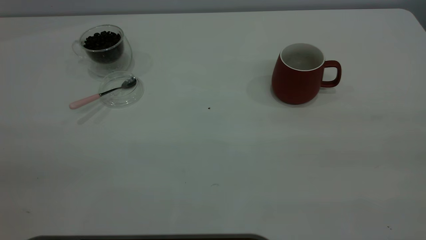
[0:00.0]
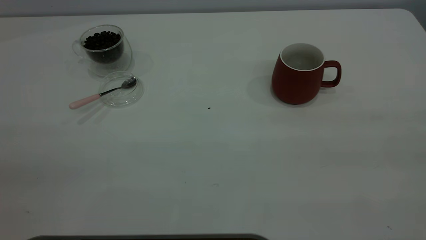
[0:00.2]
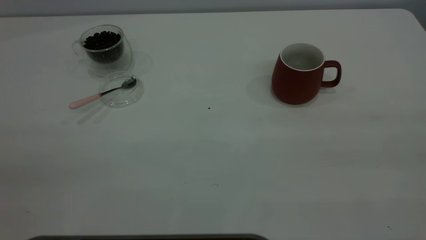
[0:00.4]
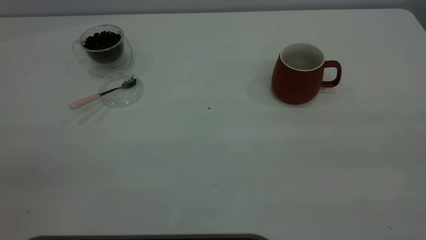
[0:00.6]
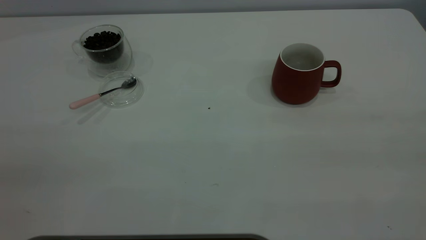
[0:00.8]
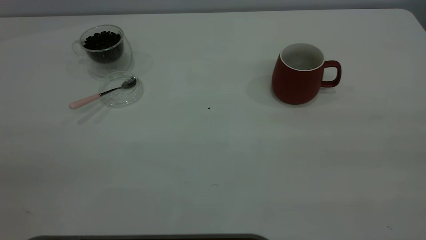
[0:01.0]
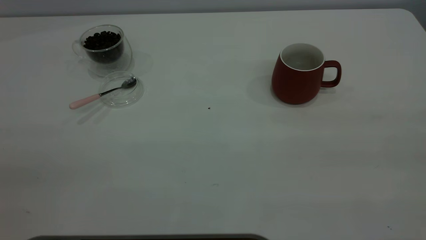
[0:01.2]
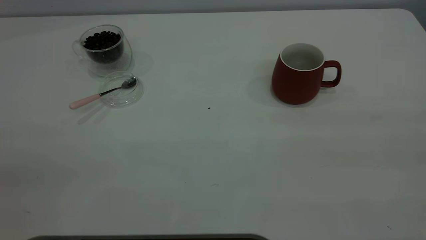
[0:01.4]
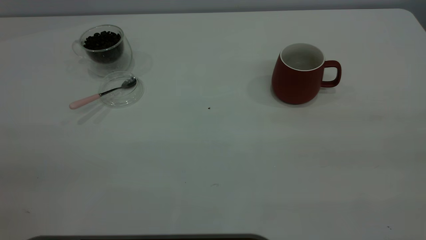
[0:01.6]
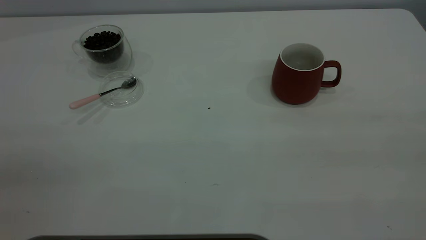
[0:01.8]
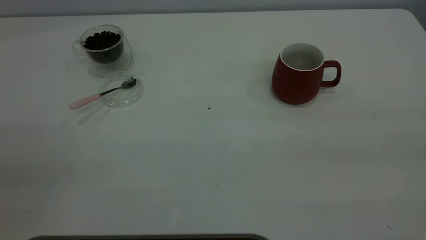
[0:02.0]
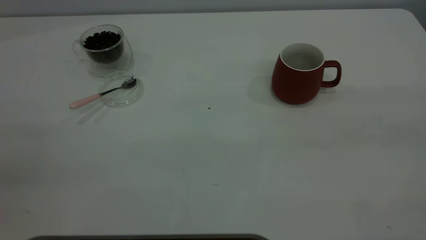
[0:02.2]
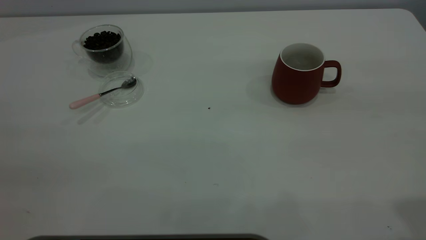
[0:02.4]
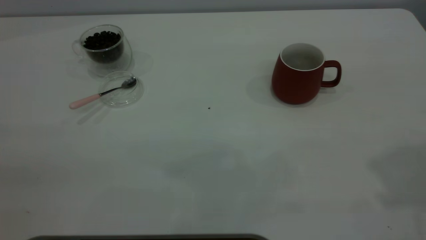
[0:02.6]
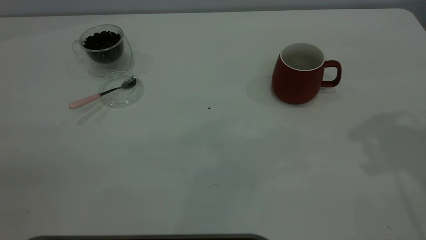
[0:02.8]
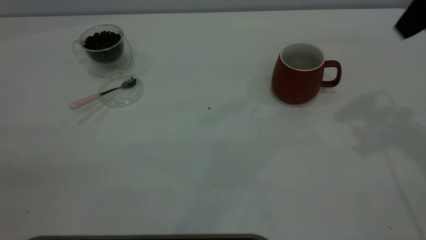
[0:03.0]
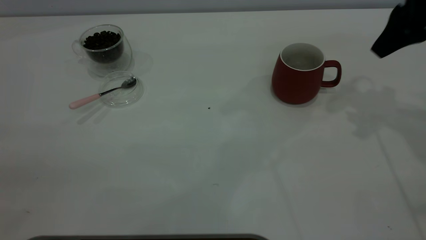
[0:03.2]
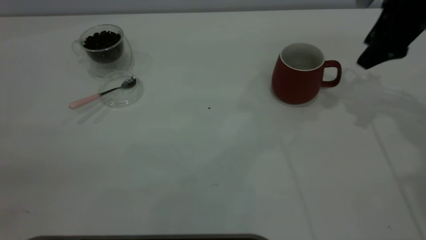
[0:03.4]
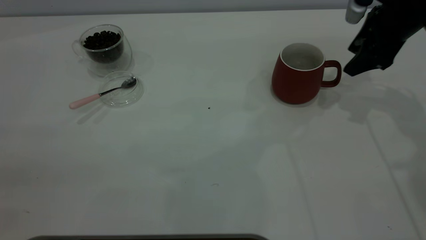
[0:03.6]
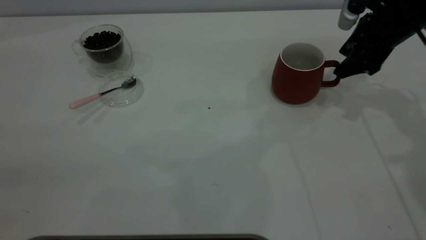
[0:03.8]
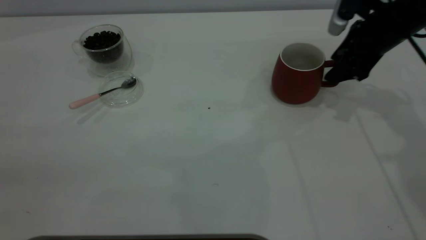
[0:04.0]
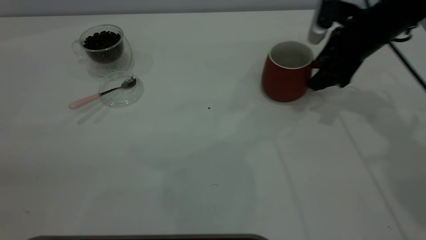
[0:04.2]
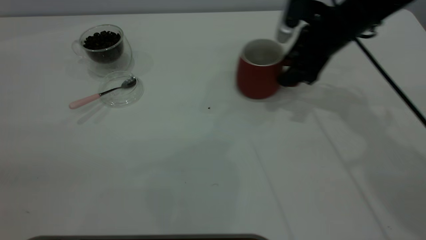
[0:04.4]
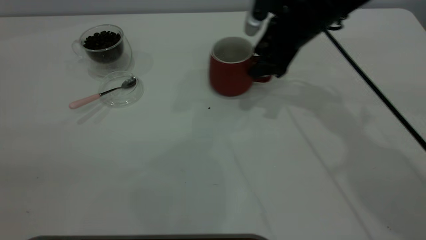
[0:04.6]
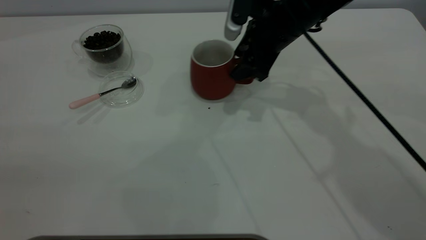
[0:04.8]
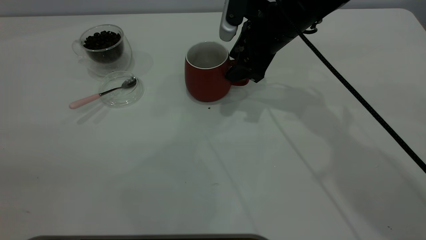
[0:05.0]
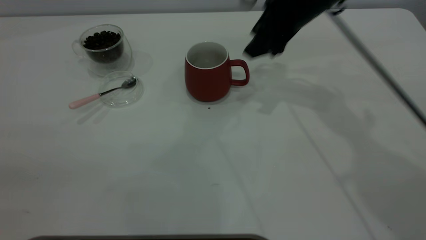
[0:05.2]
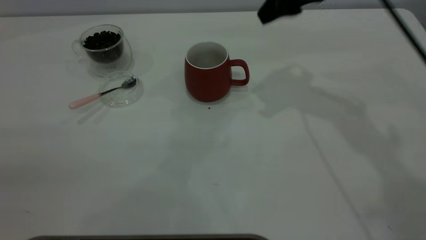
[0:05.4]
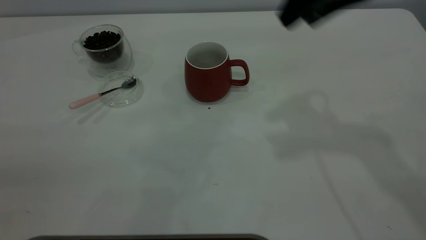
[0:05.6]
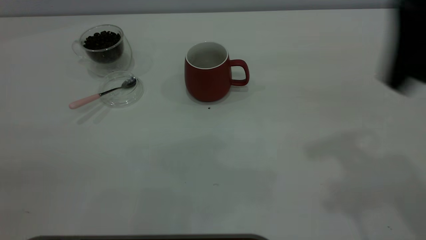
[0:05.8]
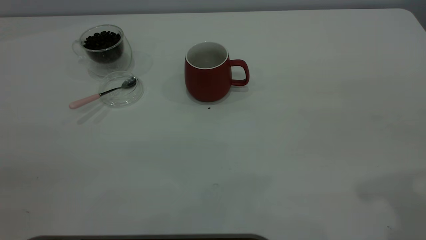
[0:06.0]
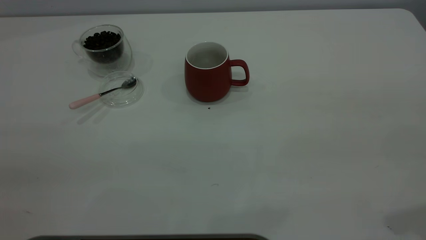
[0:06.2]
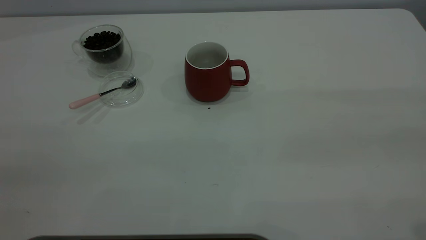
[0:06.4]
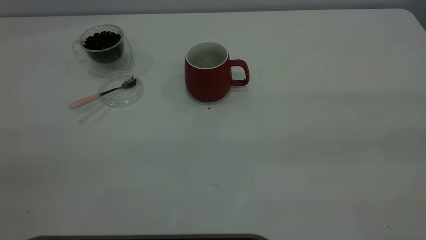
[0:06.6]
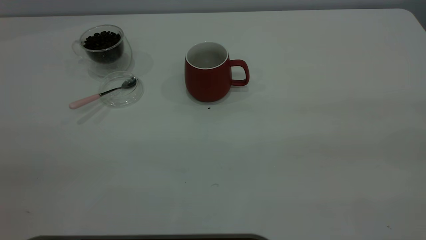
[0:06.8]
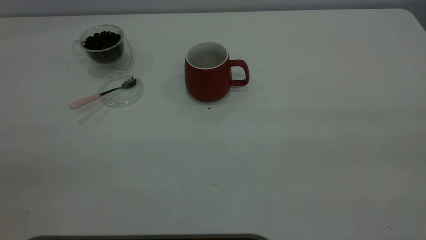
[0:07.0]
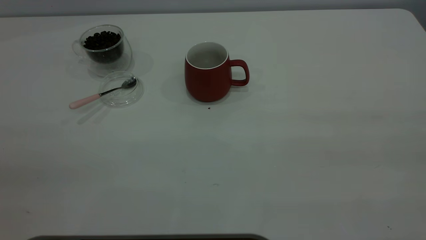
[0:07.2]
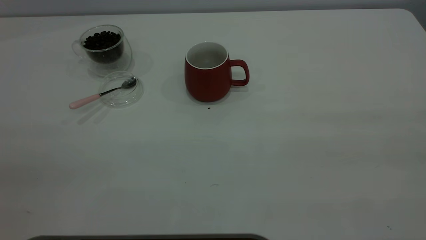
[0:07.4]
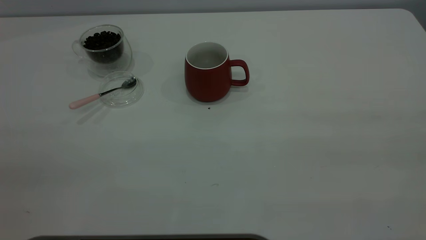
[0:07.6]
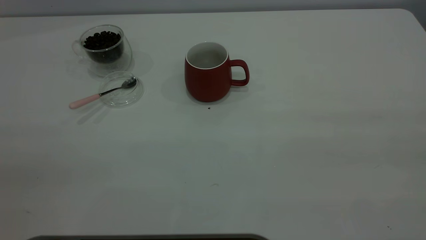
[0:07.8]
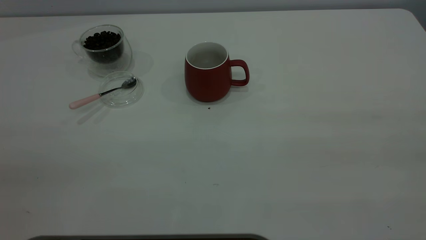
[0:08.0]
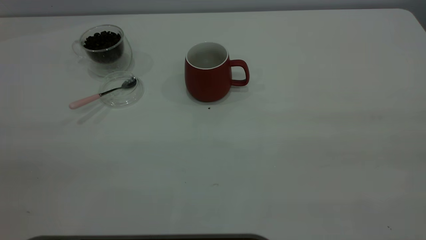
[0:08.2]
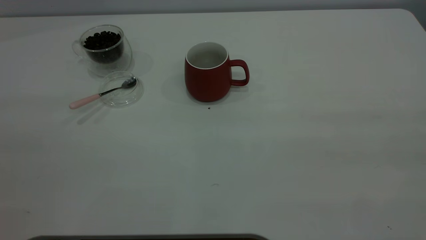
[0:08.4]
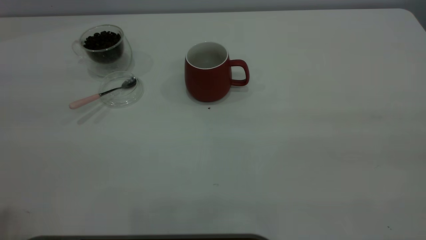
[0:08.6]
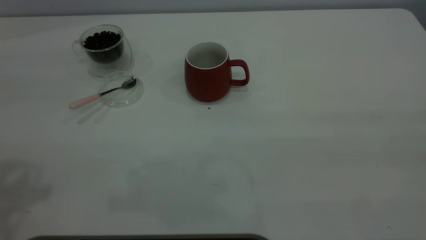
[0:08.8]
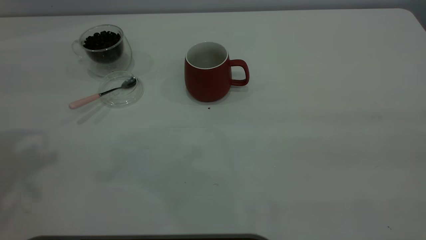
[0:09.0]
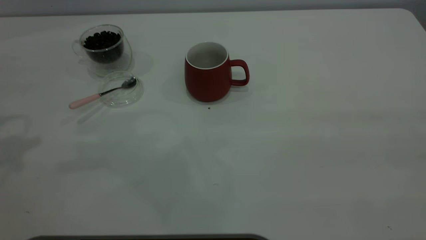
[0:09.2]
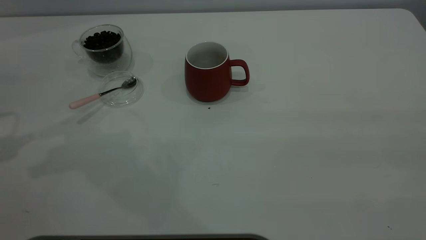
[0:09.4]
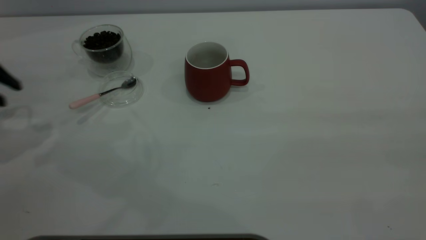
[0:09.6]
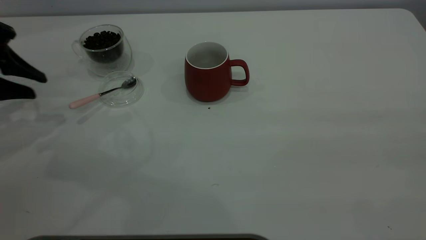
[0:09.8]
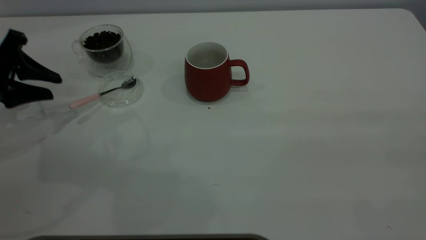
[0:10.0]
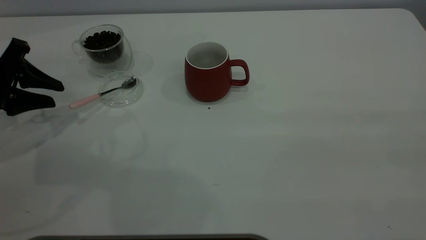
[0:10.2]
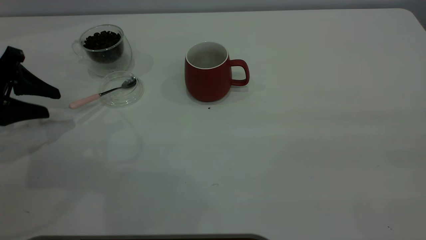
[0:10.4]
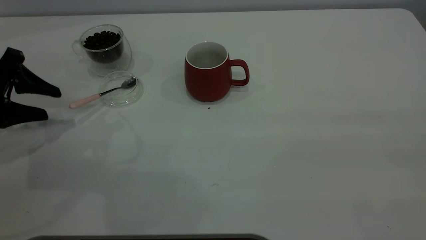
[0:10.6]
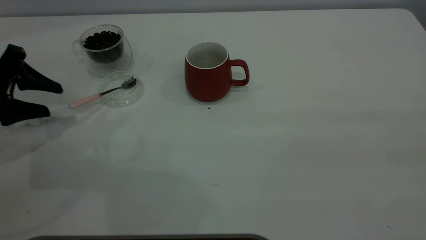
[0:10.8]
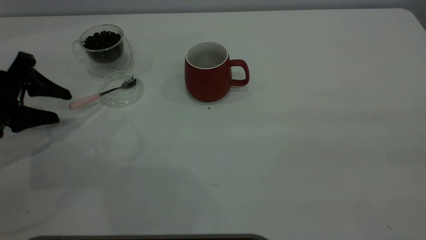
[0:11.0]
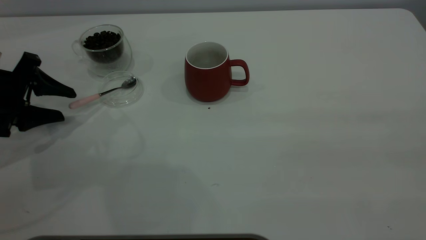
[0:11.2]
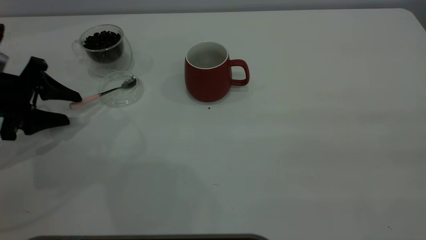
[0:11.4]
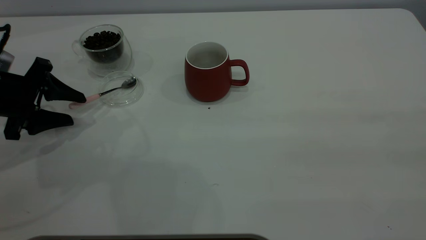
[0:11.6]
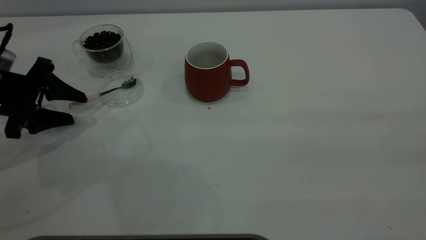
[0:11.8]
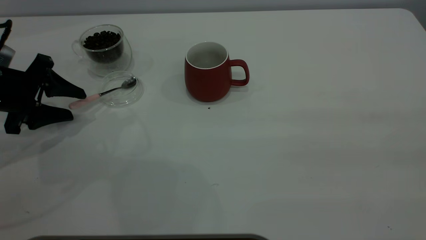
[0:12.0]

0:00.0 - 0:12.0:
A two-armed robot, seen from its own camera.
Task of the whole recording: the right gripper place the red cup in the center of the table, the left gripper take the pink spoon from the cup lid and scoop out the coffee beans from the coffee cup and put them into the red cup, the left gripper put the spoon back into the cup lid.
Step, 0:00.0 - 0:05.6: Move the cup to the center of view.
0:00.0 - 0:01.6: Neither gripper changes place.
0:01.6 - 0:03.0: The right gripper travels forward by roughly 35 cm.
0:03.0 - 0:04.4: The right gripper shifts about 20 cm downward, to the left and forward.
0:04.4 - 0:06.0: The right gripper goes roughly 30 cm backward and upward.
0:09.0 - 0:10.4: The left gripper shifts some 20 cm downward.

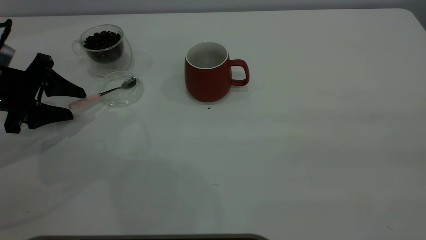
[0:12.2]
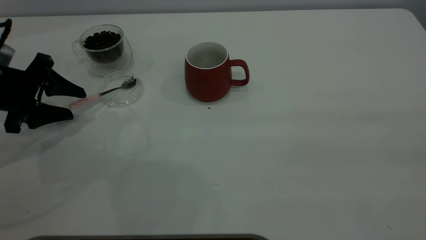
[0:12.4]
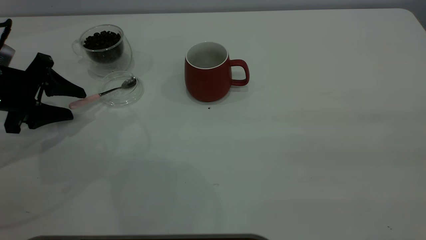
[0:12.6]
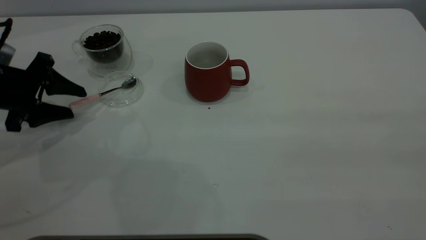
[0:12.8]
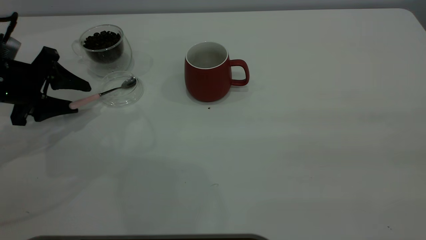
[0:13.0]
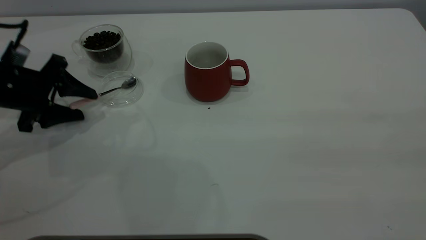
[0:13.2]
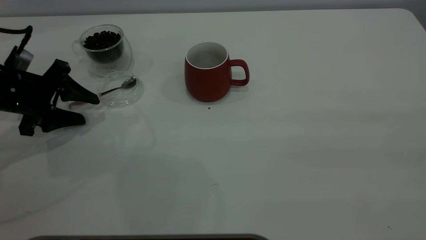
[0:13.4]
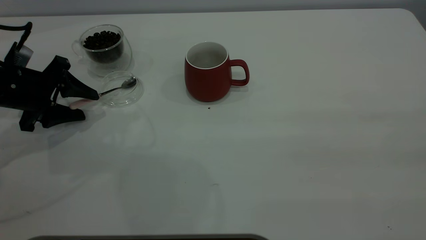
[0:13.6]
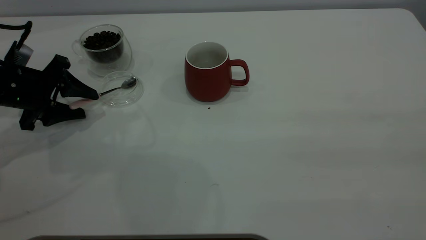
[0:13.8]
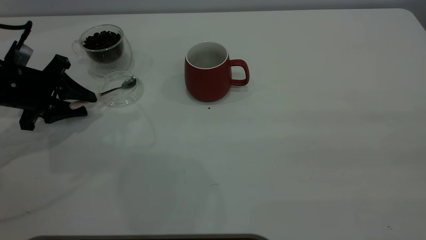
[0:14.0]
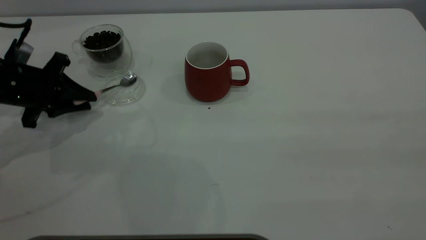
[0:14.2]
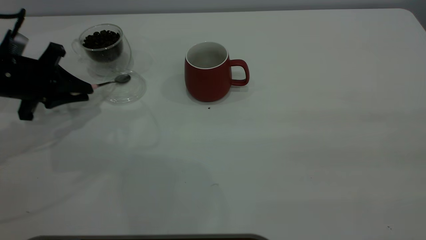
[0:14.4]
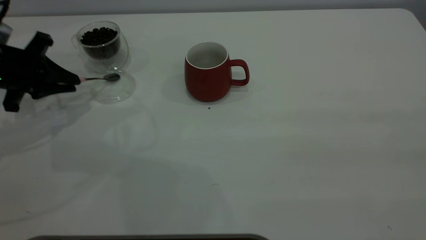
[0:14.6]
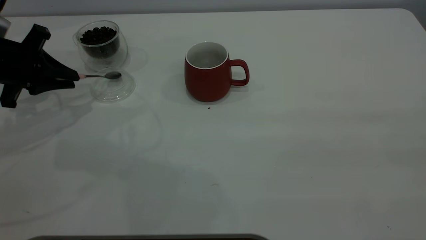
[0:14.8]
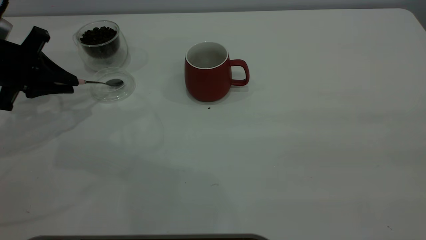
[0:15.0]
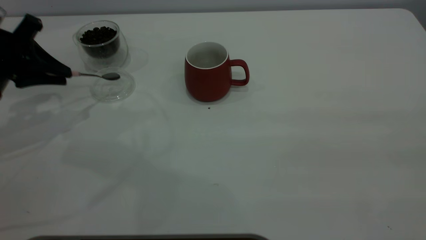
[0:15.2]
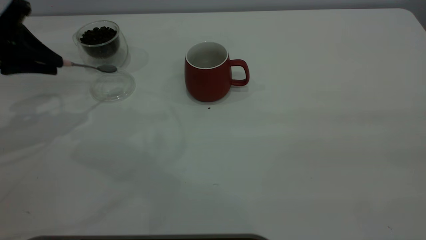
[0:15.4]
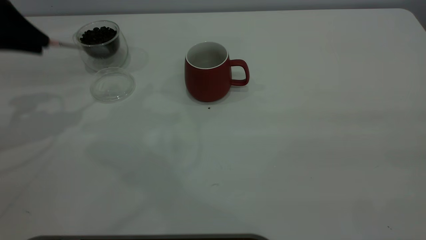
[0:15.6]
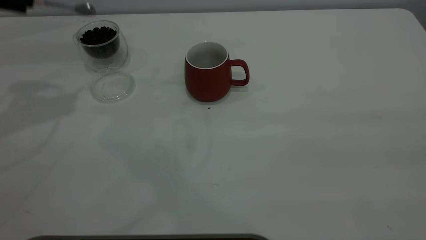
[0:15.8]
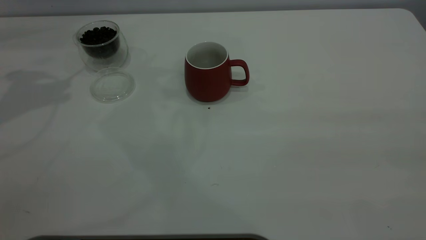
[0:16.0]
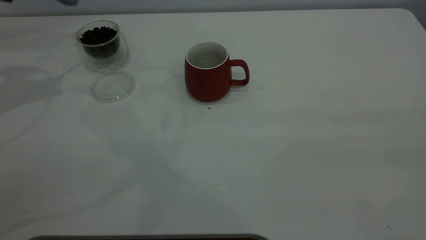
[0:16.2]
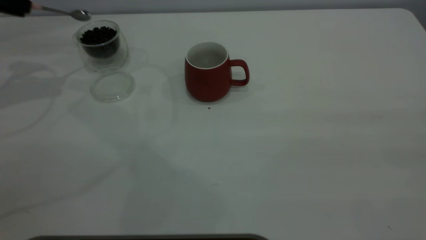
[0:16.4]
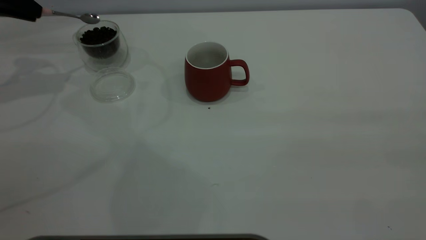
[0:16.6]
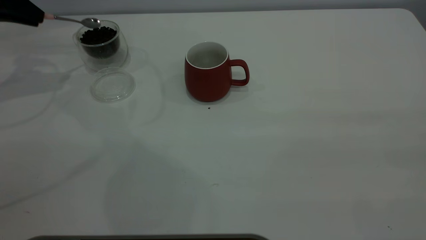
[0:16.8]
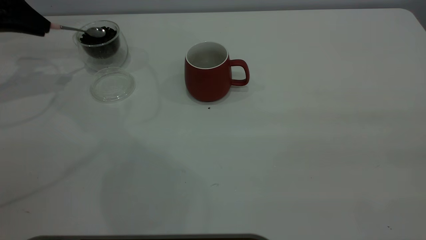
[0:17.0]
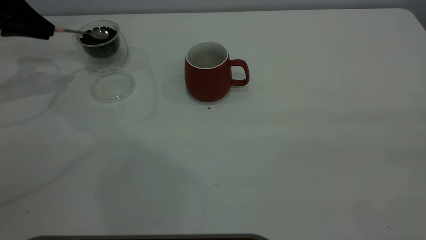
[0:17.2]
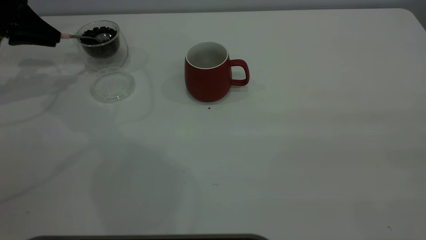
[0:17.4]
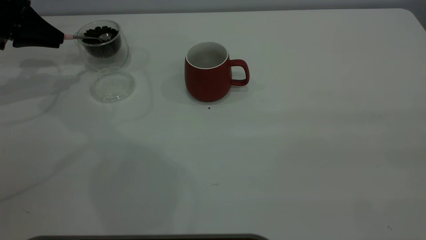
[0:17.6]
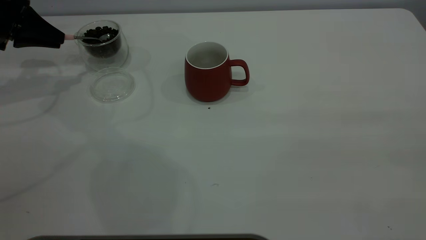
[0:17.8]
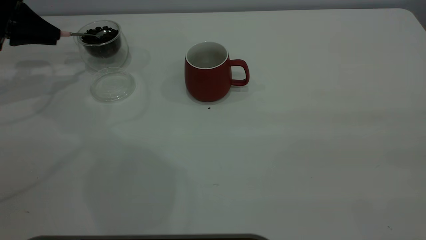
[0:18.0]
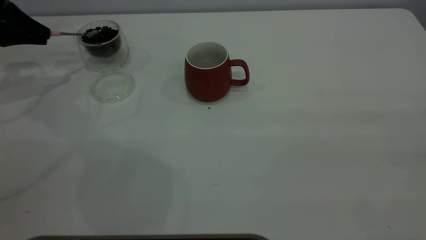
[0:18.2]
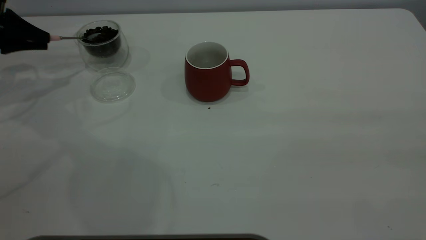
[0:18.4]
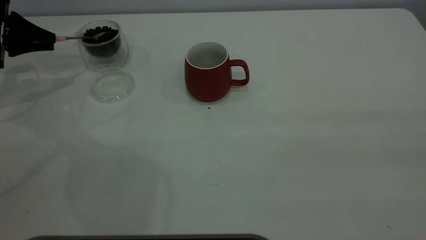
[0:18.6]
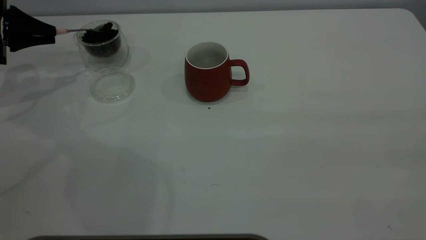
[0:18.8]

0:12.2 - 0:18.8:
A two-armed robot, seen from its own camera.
Task of the whole recording: the right gripper place the red cup in the center of the table, the left gripper take the pink spoon from the cup lid and scoop out the coffee beans from the coffee cup and put them into the red cup, the left gripper put the spoon back into the cup lid.
Step, 0:12.2 - 0:15.6: Pick up the spoon.
0:12.2 - 0:13.8: The grippers make only small movements.
0:13.8 - 0:15.4: The left gripper moves upward, about 10 cm, and closes.
0:15.4 - 0:17.2: The left gripper travels forward and to the left by some 15 cm.
